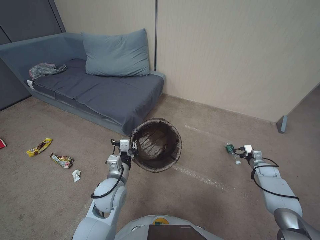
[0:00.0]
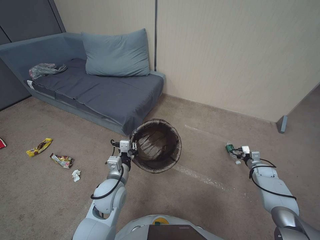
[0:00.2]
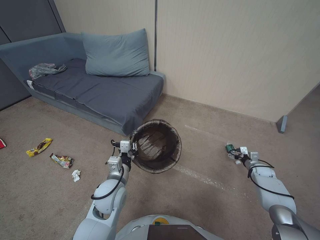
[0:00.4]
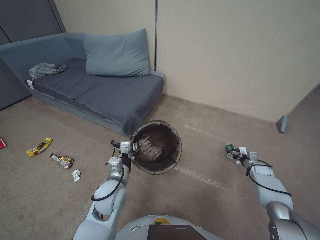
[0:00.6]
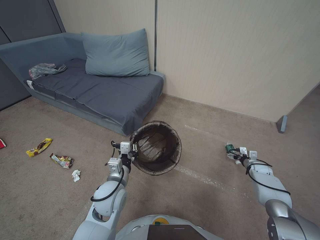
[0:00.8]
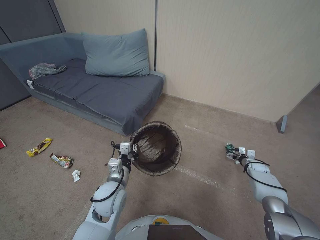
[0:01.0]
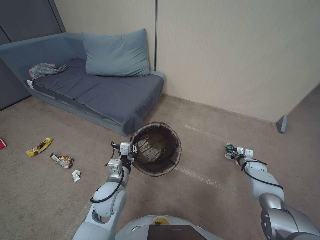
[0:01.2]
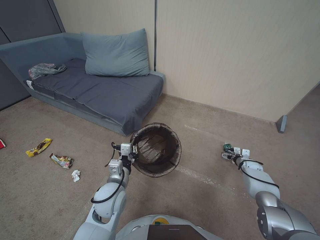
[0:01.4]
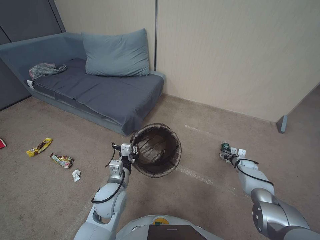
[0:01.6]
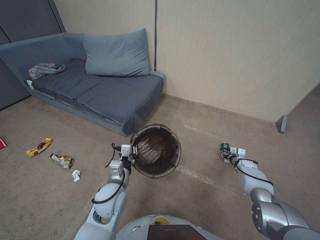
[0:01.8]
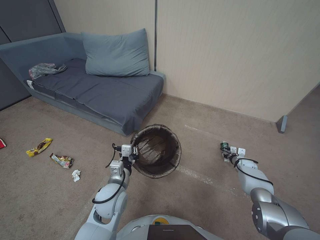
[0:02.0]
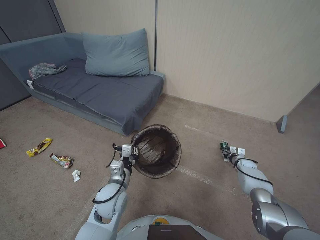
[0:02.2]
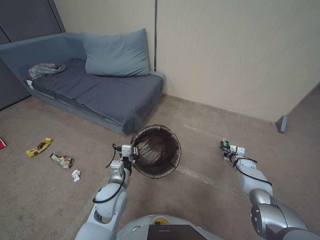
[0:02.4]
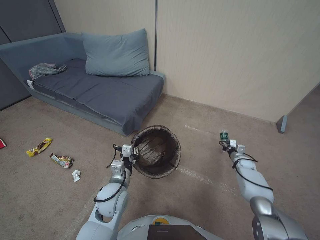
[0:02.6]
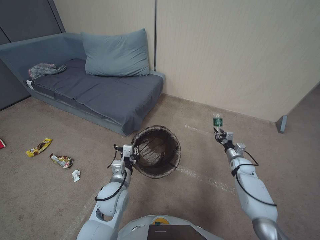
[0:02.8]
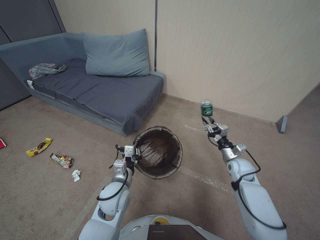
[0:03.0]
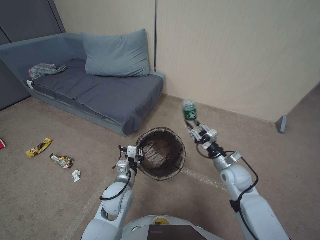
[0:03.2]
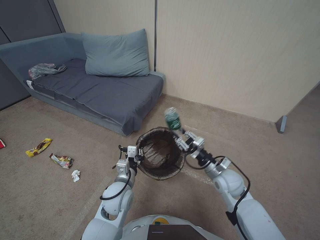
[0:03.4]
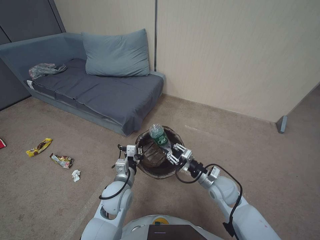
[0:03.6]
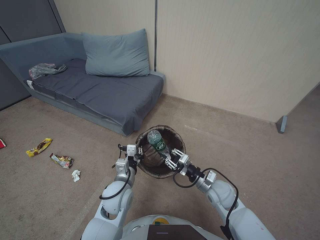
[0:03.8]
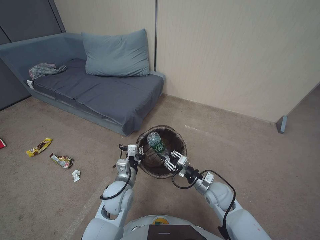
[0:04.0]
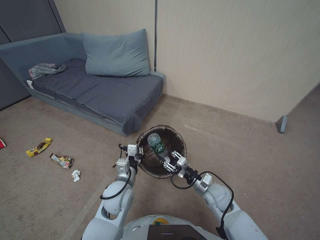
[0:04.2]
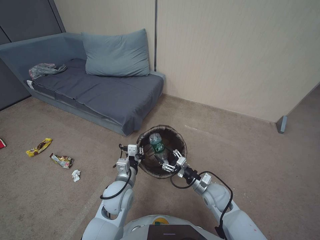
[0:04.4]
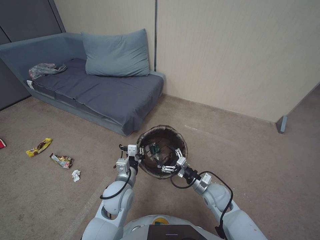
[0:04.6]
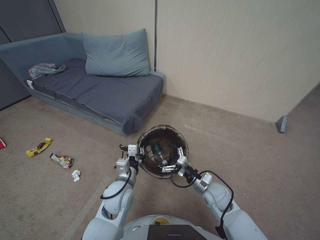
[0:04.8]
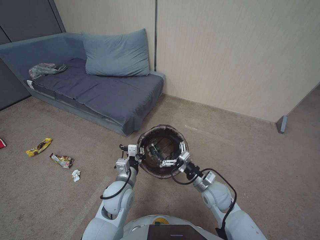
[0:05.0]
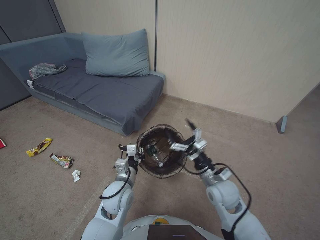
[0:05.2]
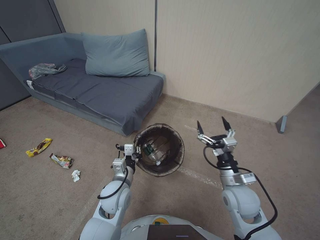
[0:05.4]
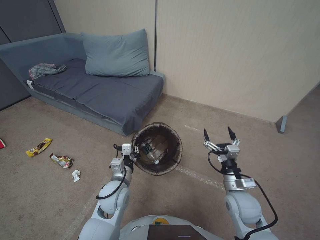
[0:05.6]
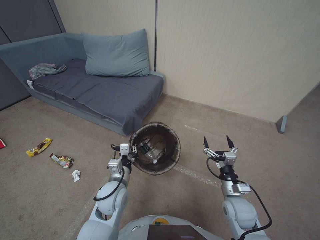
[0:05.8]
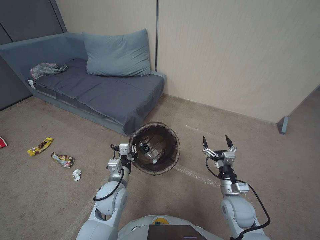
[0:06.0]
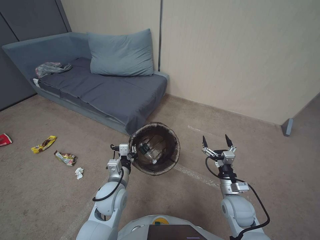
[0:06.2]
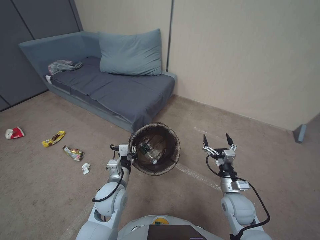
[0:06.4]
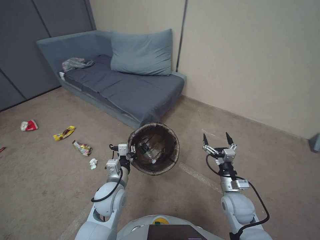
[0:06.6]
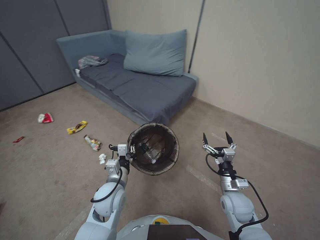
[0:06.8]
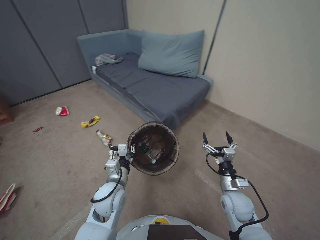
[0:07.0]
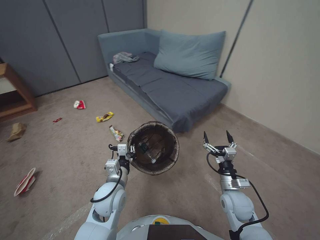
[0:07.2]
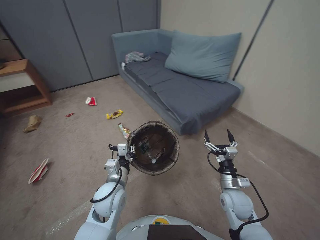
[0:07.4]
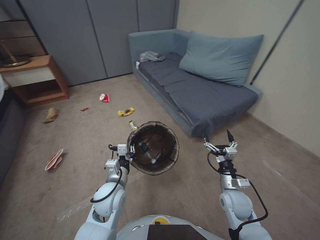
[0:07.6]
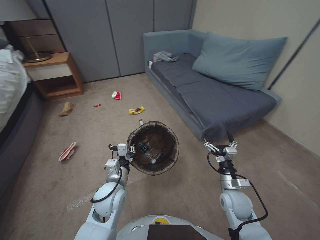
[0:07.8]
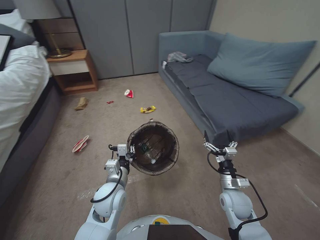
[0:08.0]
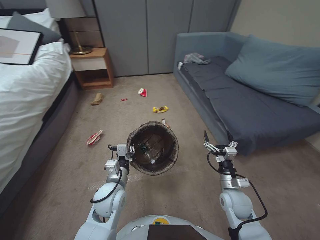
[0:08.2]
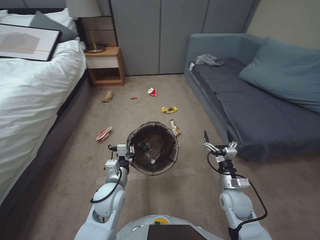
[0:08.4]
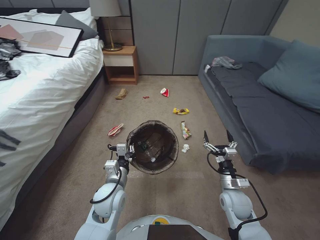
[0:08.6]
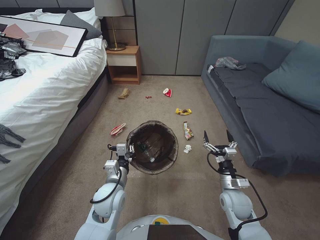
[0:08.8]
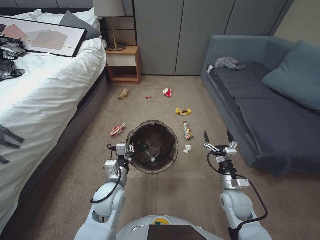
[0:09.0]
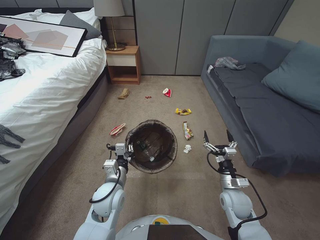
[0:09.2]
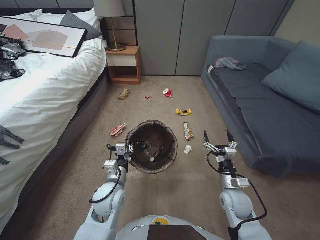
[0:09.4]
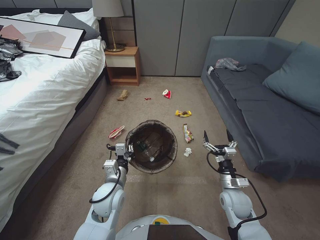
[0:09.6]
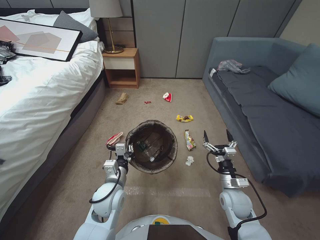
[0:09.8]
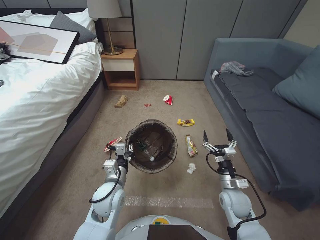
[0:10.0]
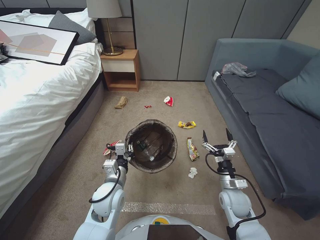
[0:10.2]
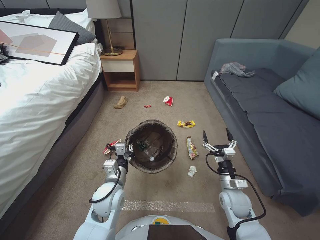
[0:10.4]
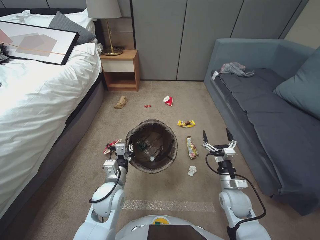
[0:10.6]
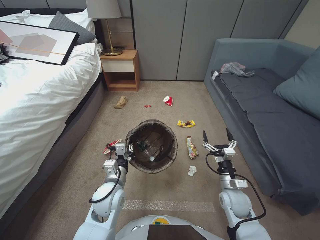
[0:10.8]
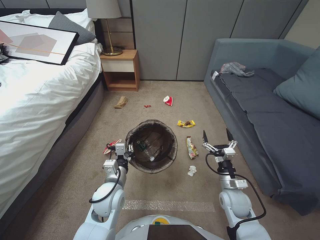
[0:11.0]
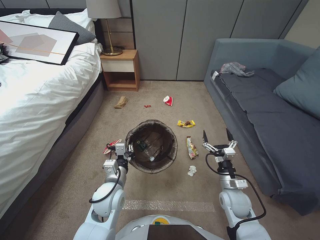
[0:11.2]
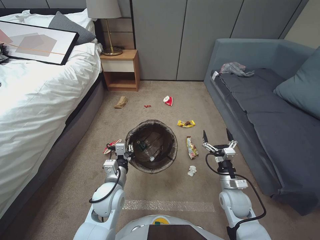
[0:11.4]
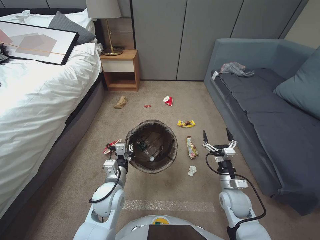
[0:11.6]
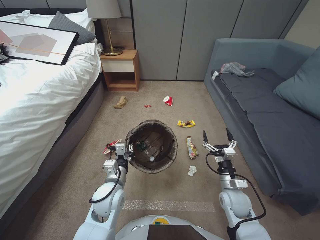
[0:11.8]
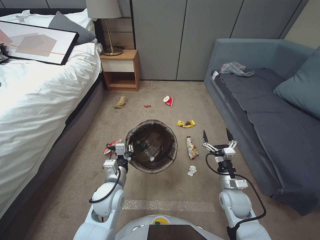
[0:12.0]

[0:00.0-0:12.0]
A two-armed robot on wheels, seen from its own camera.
Task of the whole recording: Pick up the trash bin, then pick up the garbage from the floor and place it into the trash bin.
0:00.0 to 0:01.6: The right gripper goes some 5 cm to the left.
0:01.6 to 0:03.0: The right gripper heads to the left, upward and backward, covering roughly 20 cm, and closes up.
0:03.0 to 0:04.4: The right gripper travels to the left and backward by approximately 20 cm.
0:04.4 to 0:06.0: The right gripper travels to the right by about 5 cm, goes upward and returns, roughly 10 cm each way, and opens.
0:10.4 to 0:12.0: Neither gripper changes place.

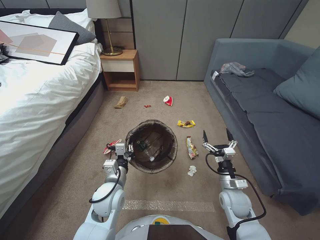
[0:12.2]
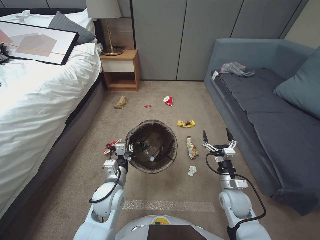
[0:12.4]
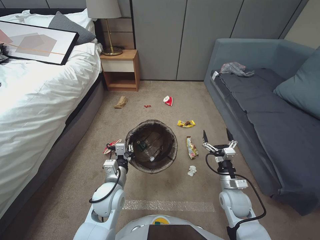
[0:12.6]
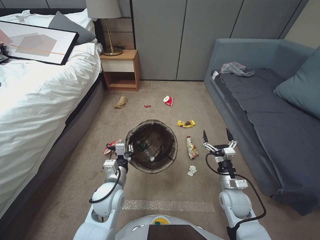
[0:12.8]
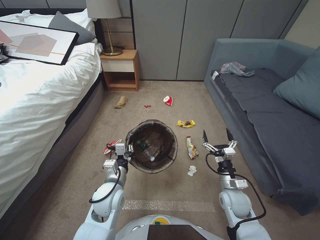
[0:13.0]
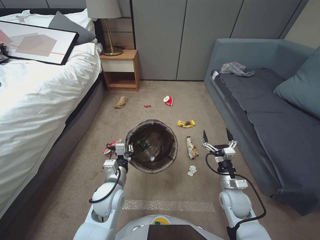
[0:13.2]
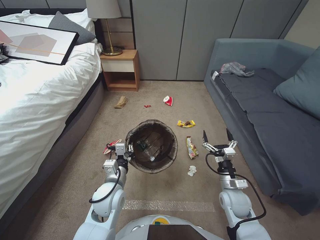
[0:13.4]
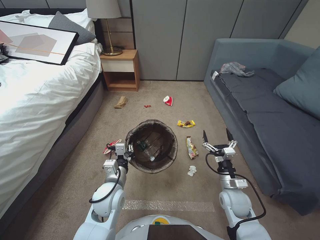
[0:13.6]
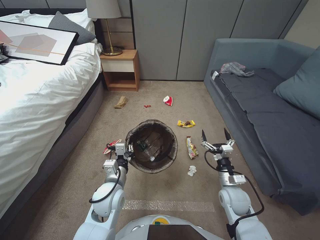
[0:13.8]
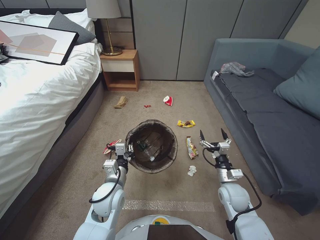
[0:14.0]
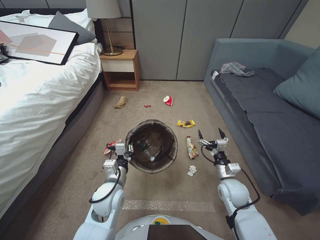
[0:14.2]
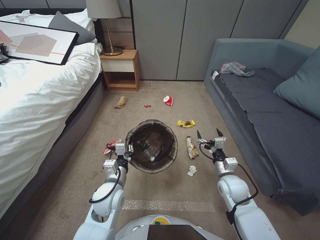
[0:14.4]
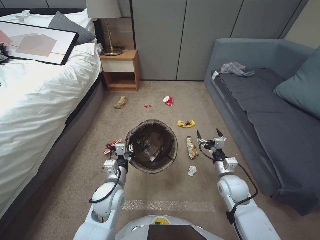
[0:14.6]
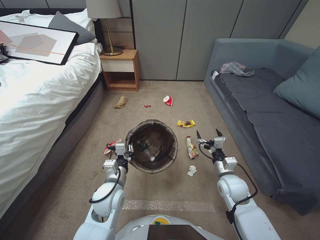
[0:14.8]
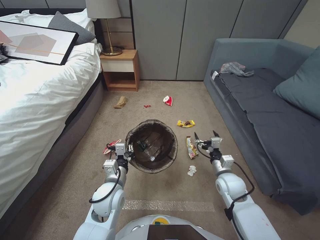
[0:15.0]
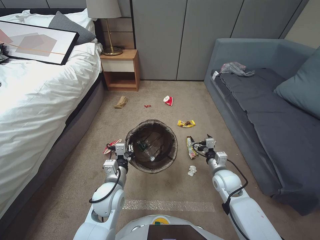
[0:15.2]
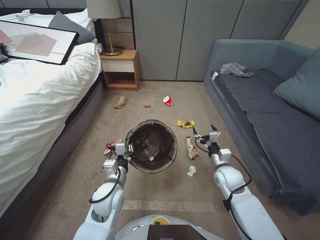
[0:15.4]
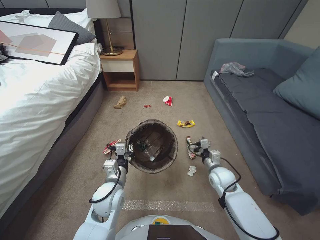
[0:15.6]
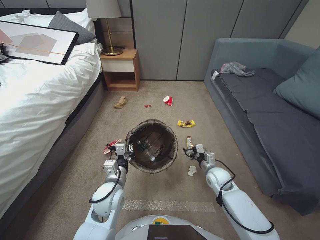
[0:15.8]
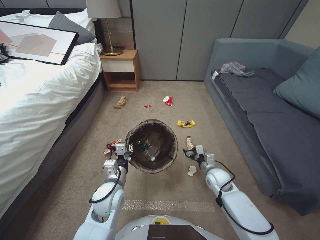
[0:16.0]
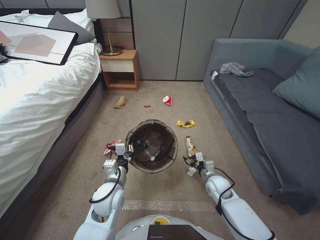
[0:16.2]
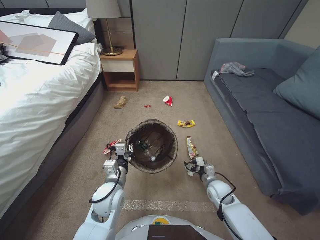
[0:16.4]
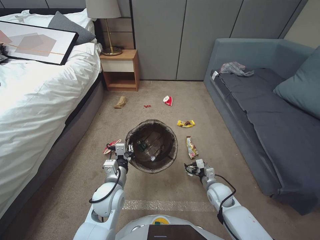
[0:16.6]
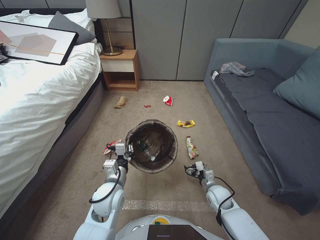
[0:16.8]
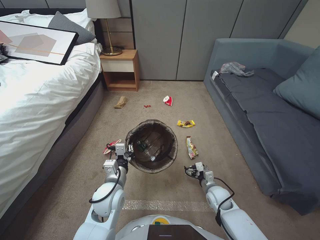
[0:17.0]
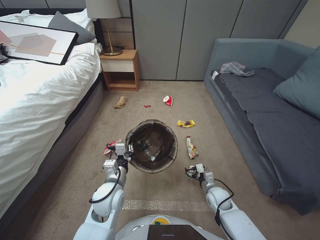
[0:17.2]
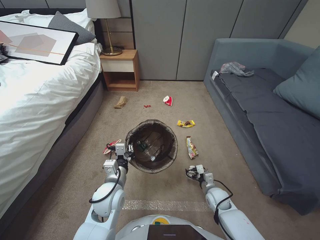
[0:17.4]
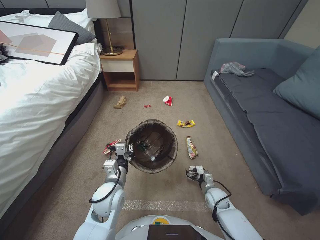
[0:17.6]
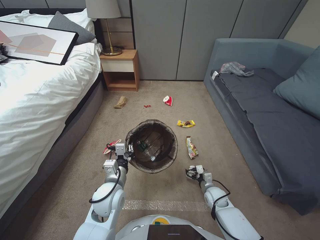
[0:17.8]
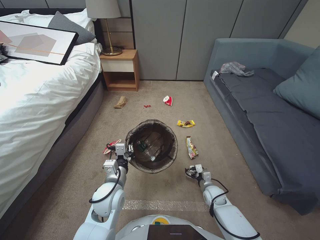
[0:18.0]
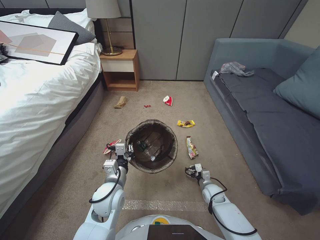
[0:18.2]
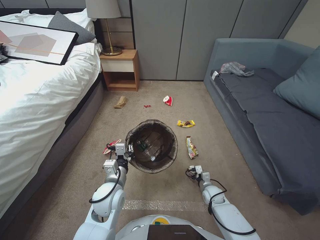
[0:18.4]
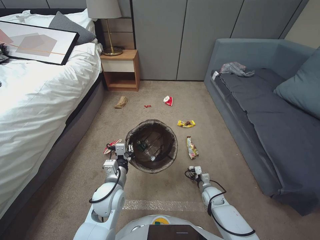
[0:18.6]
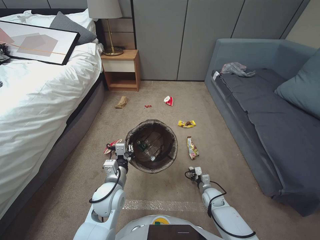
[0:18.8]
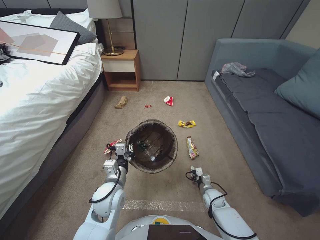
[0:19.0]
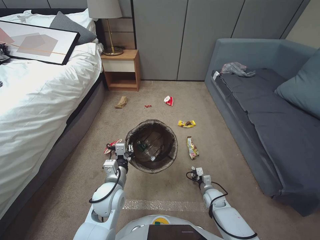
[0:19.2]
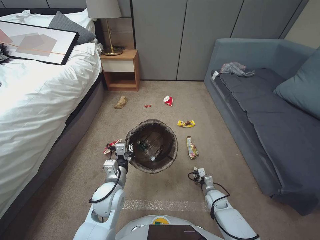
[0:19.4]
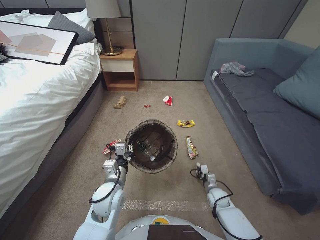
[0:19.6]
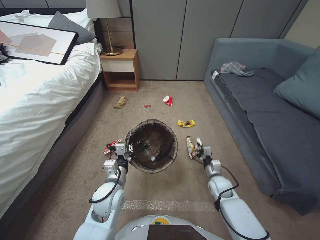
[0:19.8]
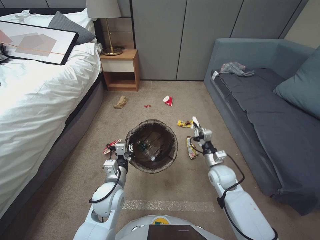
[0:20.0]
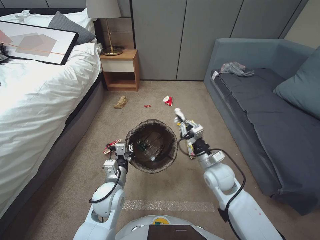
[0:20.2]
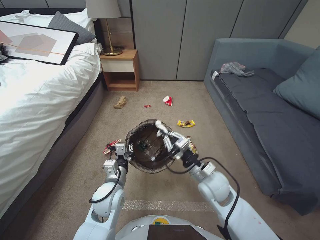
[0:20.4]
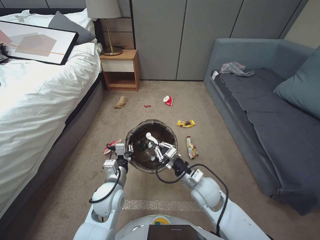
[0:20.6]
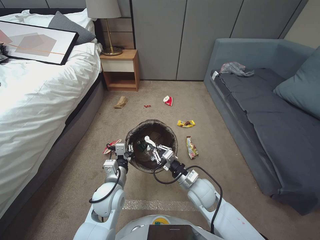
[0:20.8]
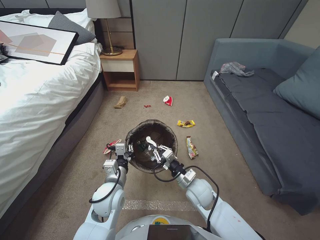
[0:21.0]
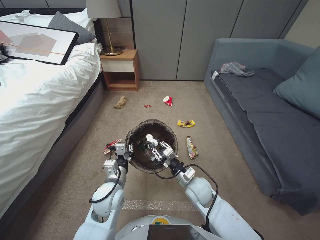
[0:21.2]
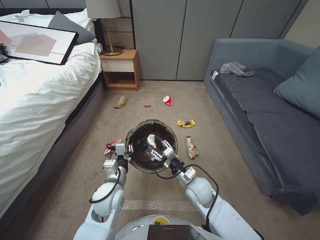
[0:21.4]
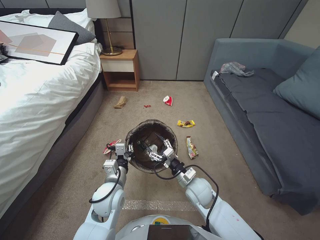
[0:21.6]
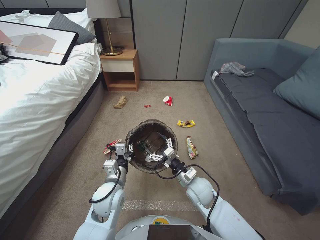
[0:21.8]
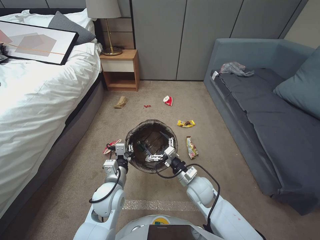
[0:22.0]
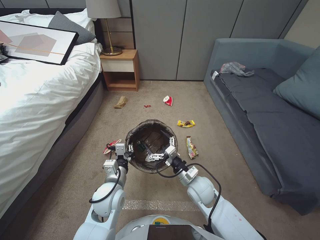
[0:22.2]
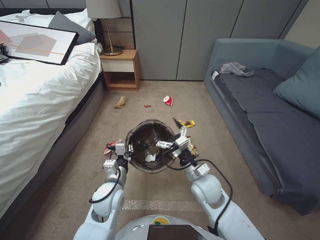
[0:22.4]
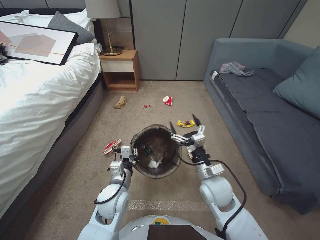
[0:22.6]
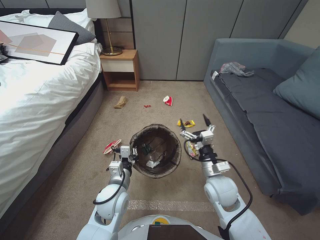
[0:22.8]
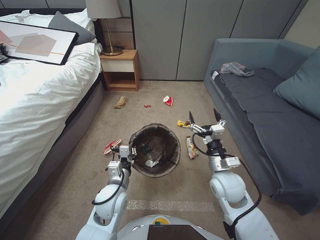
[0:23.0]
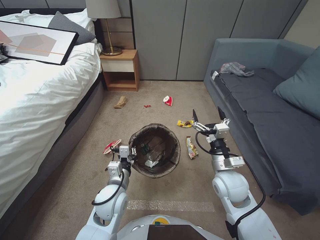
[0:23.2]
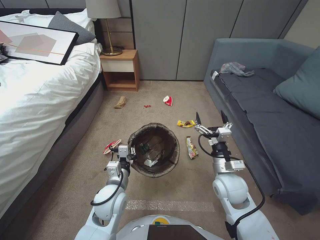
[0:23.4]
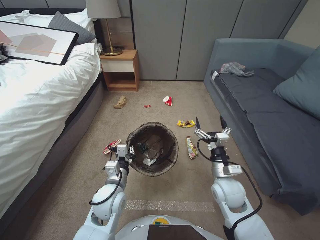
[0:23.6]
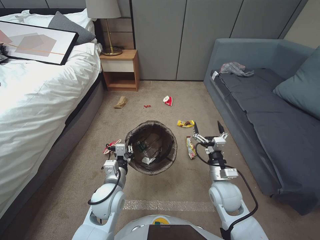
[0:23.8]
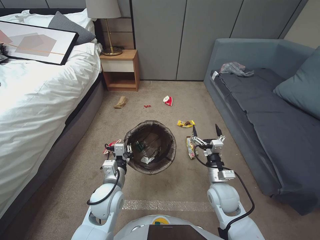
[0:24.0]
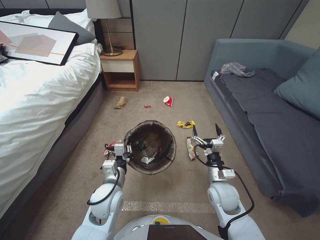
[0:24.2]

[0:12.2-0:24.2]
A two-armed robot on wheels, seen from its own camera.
Task of the whole recording: Pick up the trash bin, then pick up the garbage from the floor and place it into the trash bin.
0:12.2 to 0:13.8: Both grippers stay put.
0:13.8 to 0:15.2: The grippers move only a little.
0:15.2 to 0:16.6: The right gripper moves downward, some 10 cm.
0:16.6 to 0:18.2: The right gripper shifts roughly 10 cm downward.
0:18.2 to 0:19.8: The right gripper closes.
0:19.8 to 0:21.2: The right gripper shifts about 20 cm to the left and upward.
0:21.2 to 0:22.6: The right gripper travels upward by some 5 cm, and opens up.
0:22.6 to 0:24.2: The right gripper moves to the right, approximately 5 cm.
